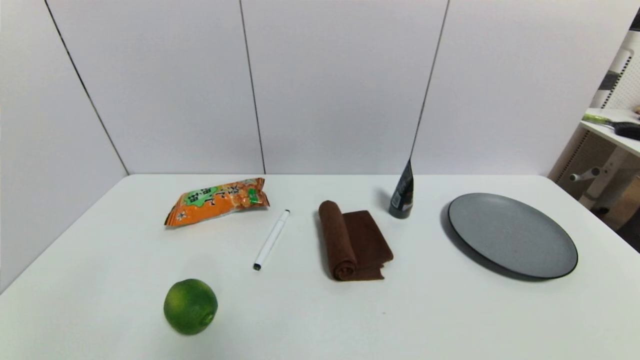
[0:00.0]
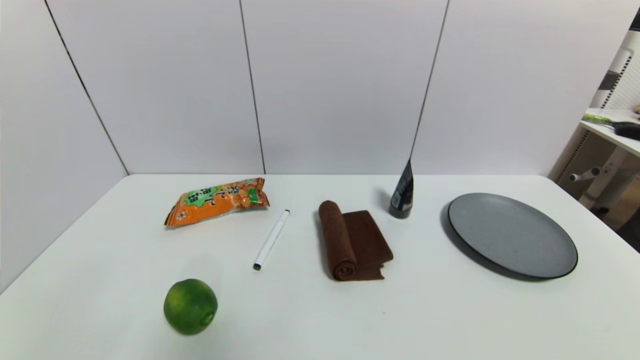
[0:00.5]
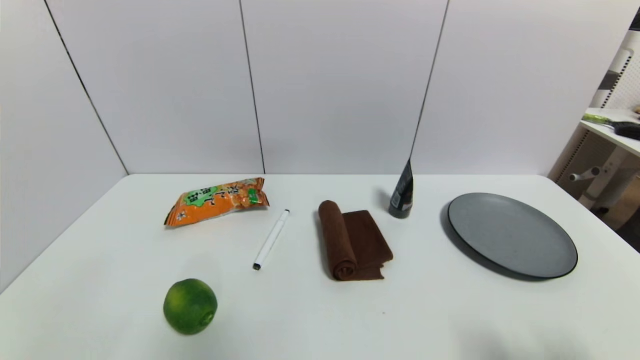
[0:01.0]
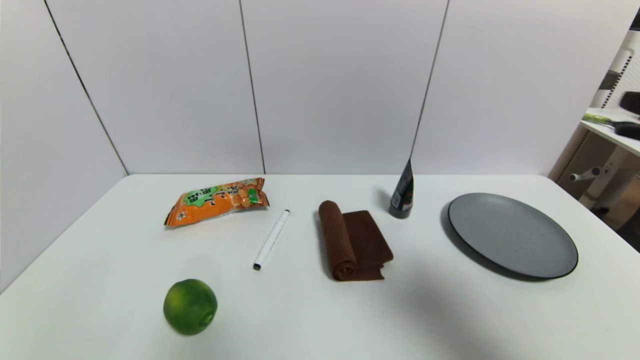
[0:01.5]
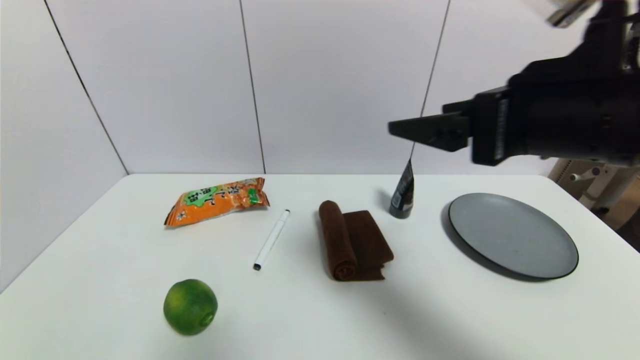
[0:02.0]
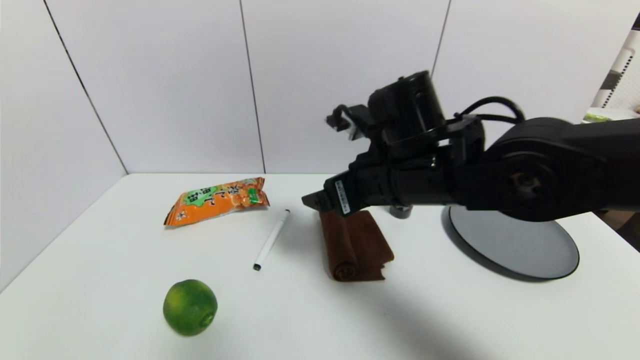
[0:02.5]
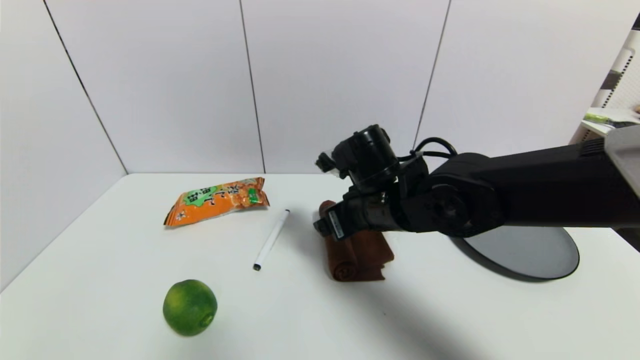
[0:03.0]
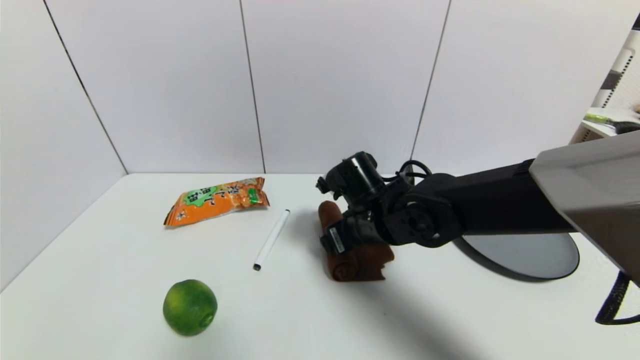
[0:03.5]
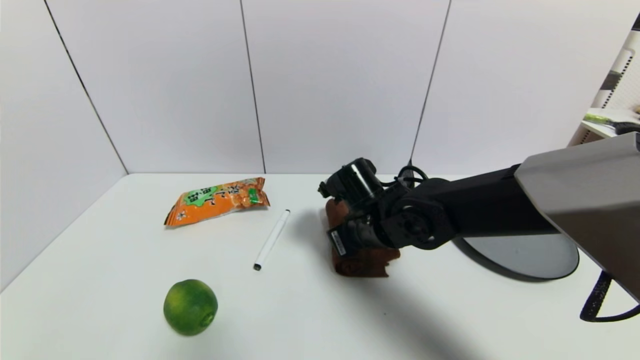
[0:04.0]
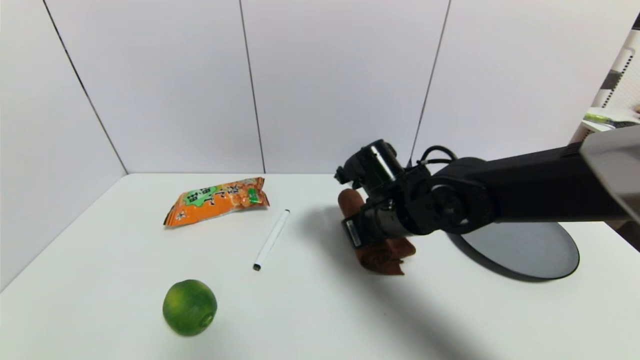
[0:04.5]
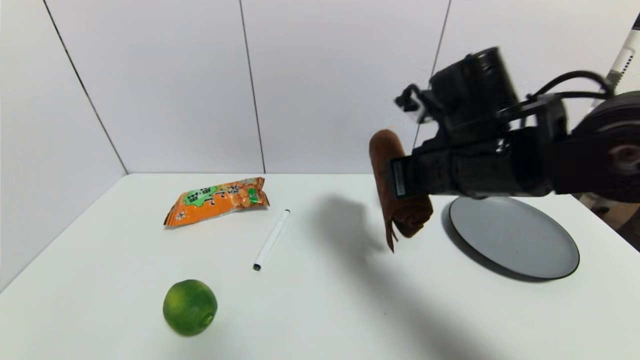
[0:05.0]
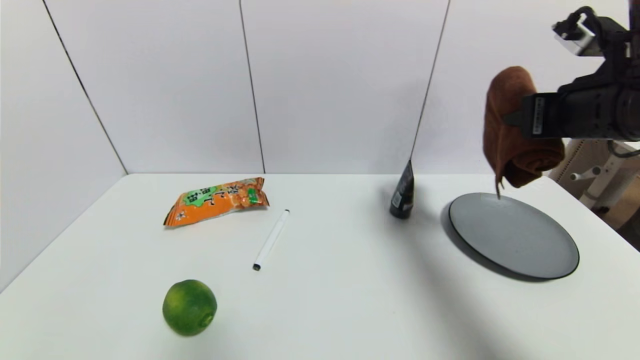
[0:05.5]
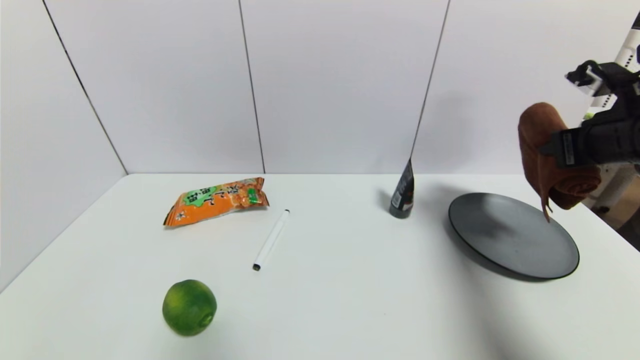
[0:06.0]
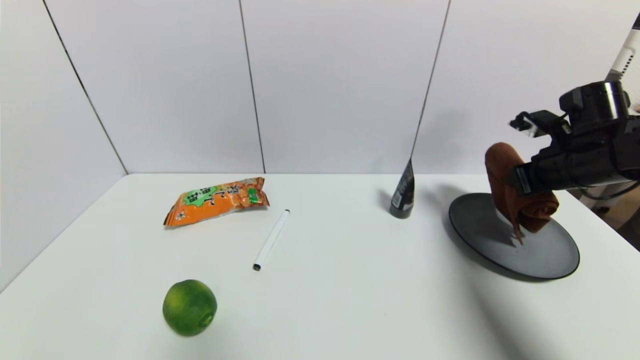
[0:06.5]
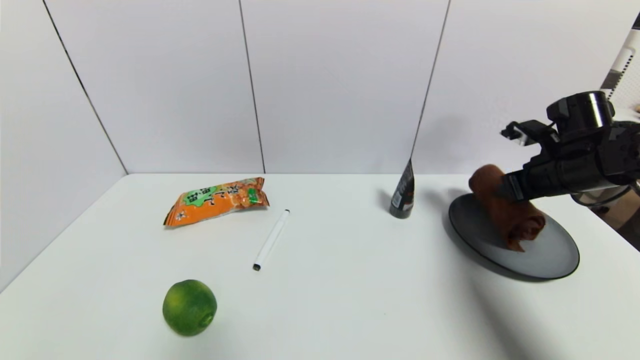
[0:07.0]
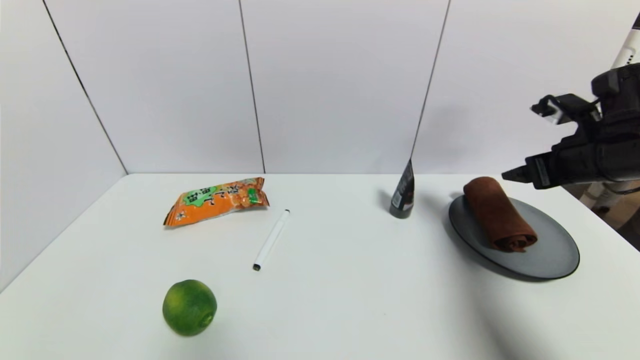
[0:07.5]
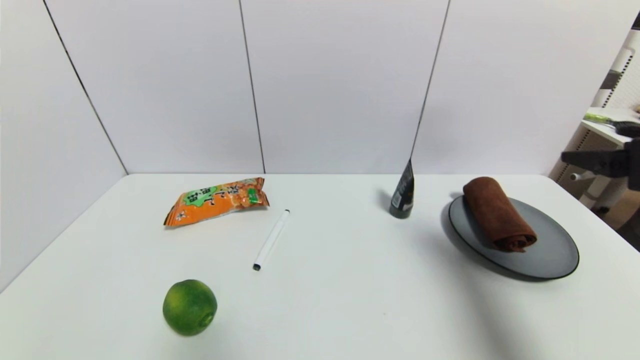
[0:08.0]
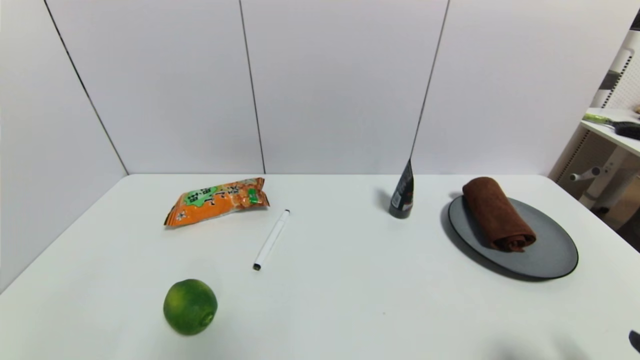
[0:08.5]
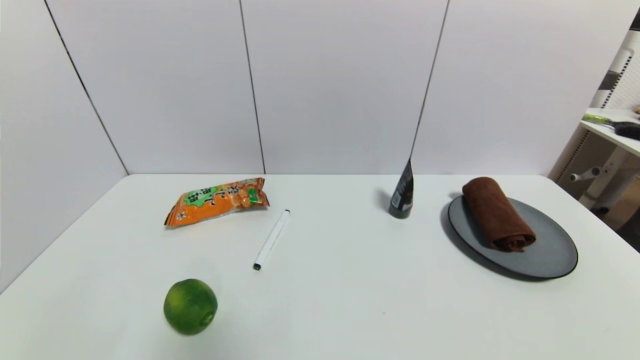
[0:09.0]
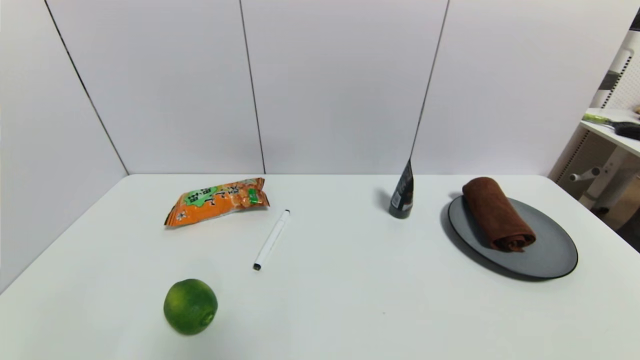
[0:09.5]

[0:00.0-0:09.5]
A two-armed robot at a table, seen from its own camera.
Task of the whole recording: use a gripper to pick the target object and place on the gray plate.
Step, 0:00.0 to 0:04.0: Grasp the brown towel with the right gripper.
Step, 0:04.5 to 0:07.0: Place the brown towel on the gray plate with the right gripper.
0:00.0 to 0:02.0: The right gripper is displaced upward, forward and to the left by about 35 cm.
0:02.0 to 0:04.0: The right gripper moves downward, forward and to the left, approximately 25 cm, and closes up.
0:04.0 to 0:05.5: The right gripper is displaced to the right and upward by roughly 30 cm, and closes its fingers.
0:05.5 to 0:07.5: The right gripper goes approximately 10 cm downward and to the right, and opens its fingers.
0:07.5 to 0:09.5: The right gripper is displaced backward and downward by about 35 cm.
